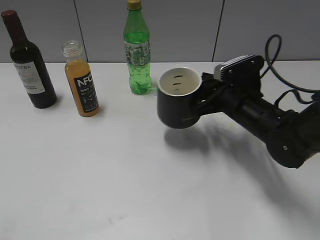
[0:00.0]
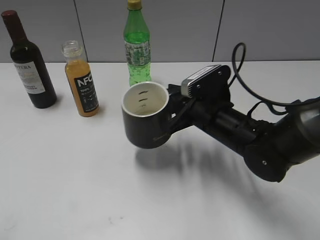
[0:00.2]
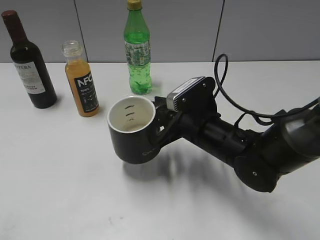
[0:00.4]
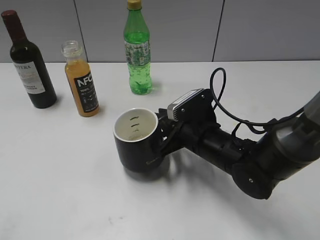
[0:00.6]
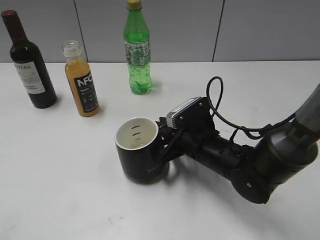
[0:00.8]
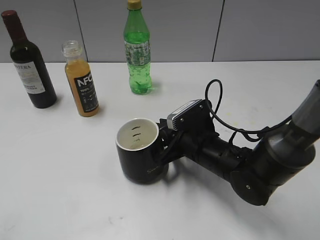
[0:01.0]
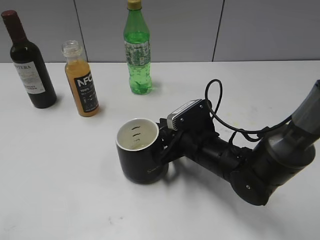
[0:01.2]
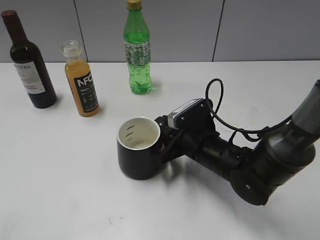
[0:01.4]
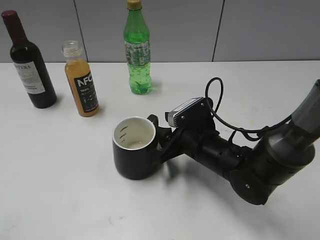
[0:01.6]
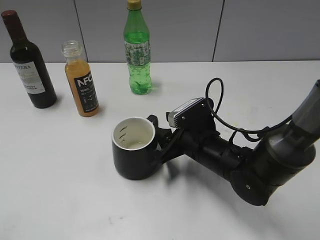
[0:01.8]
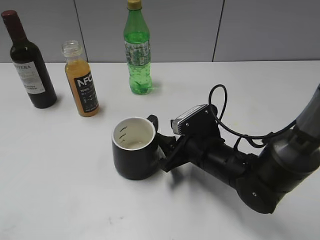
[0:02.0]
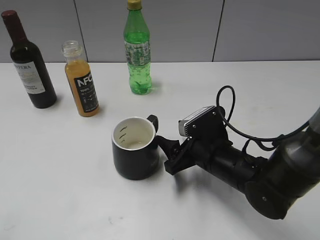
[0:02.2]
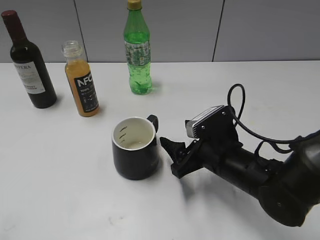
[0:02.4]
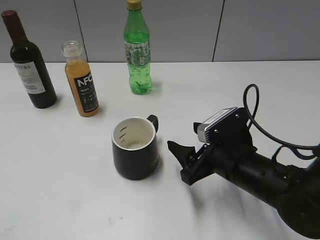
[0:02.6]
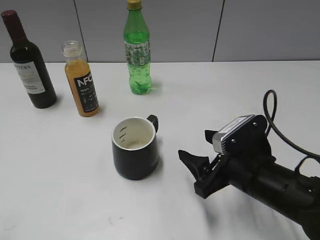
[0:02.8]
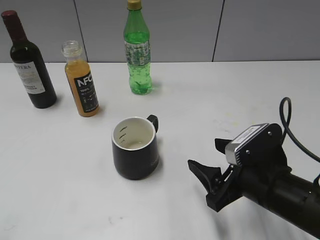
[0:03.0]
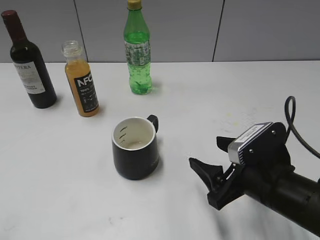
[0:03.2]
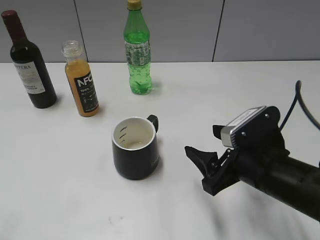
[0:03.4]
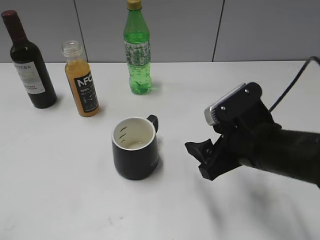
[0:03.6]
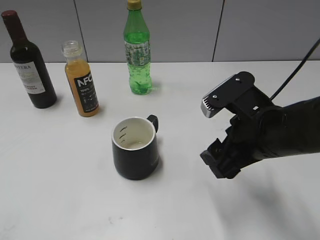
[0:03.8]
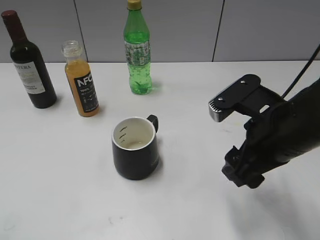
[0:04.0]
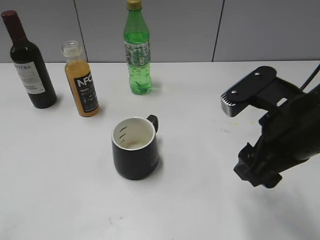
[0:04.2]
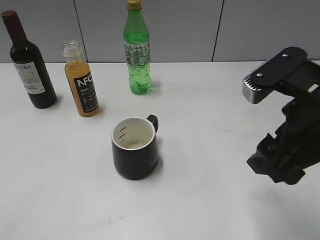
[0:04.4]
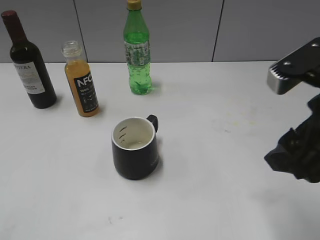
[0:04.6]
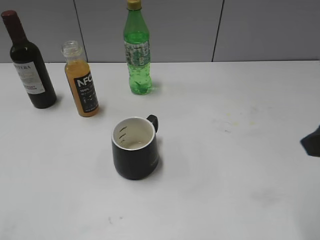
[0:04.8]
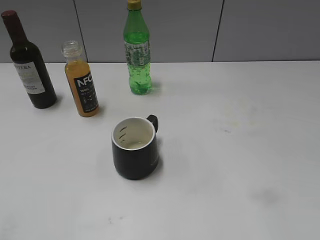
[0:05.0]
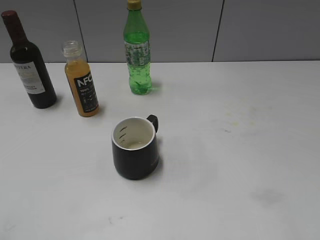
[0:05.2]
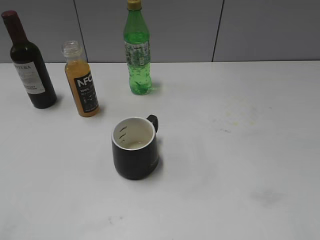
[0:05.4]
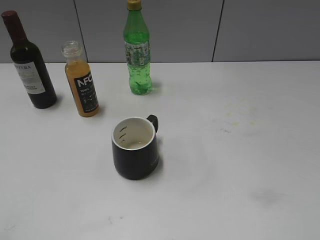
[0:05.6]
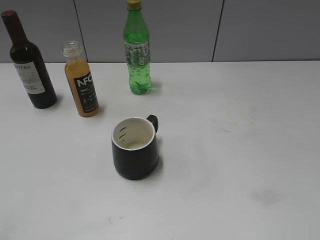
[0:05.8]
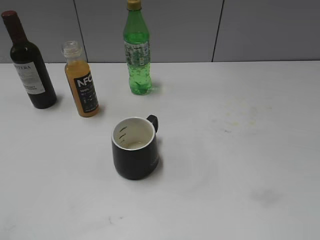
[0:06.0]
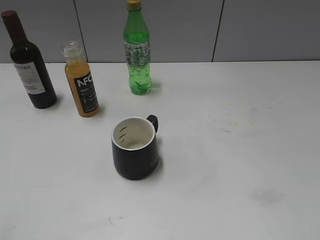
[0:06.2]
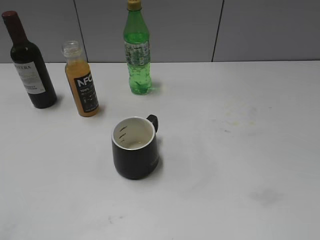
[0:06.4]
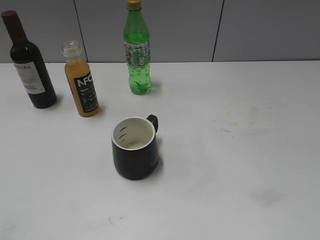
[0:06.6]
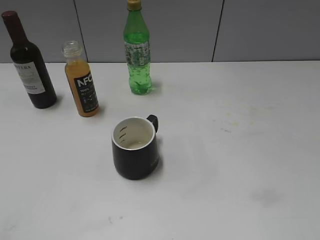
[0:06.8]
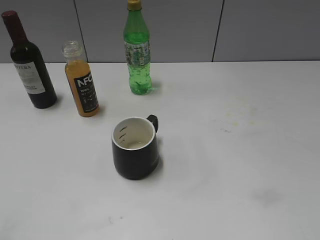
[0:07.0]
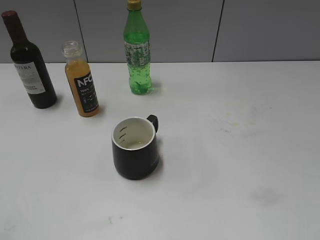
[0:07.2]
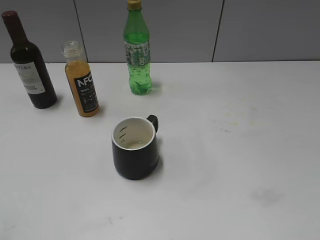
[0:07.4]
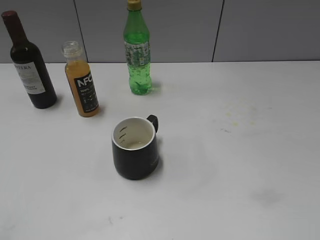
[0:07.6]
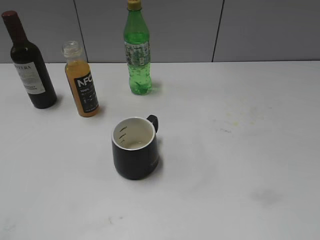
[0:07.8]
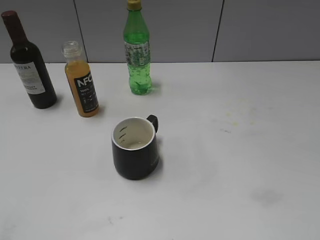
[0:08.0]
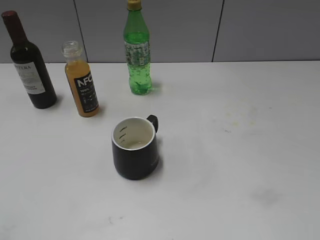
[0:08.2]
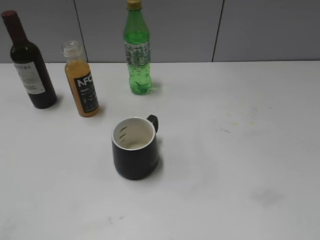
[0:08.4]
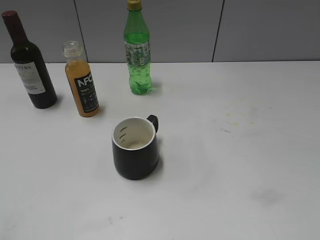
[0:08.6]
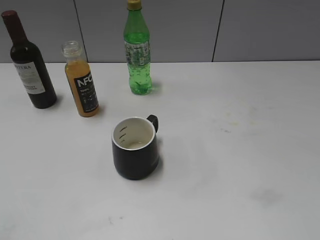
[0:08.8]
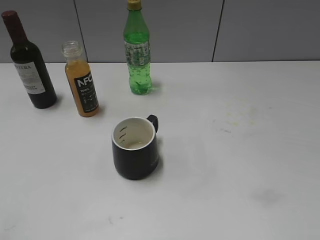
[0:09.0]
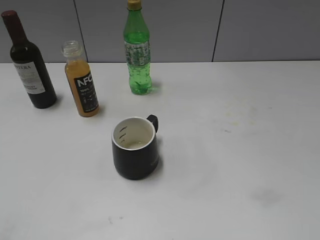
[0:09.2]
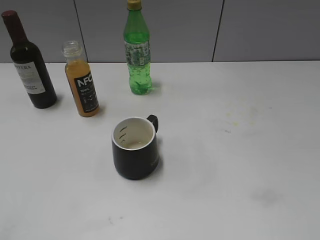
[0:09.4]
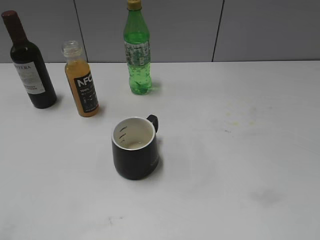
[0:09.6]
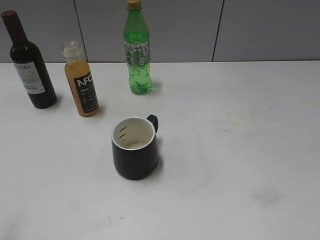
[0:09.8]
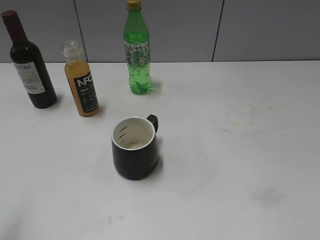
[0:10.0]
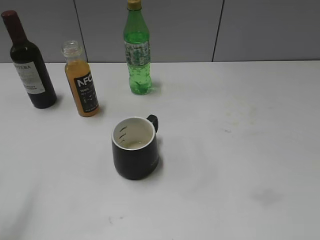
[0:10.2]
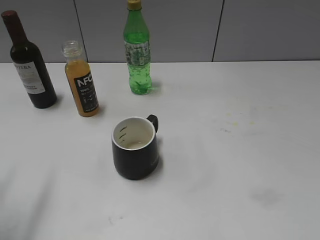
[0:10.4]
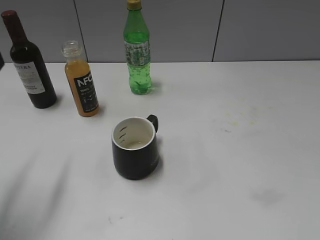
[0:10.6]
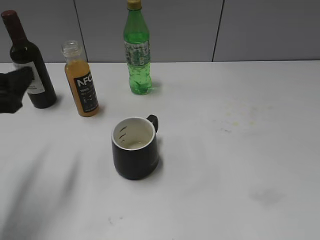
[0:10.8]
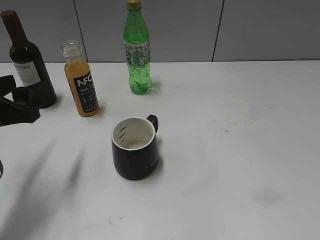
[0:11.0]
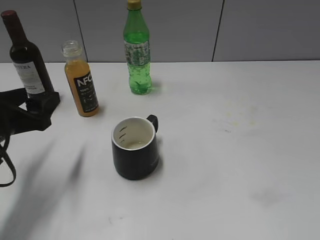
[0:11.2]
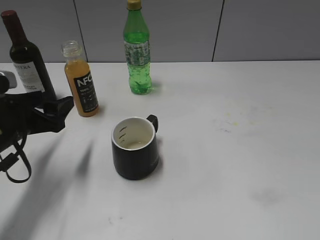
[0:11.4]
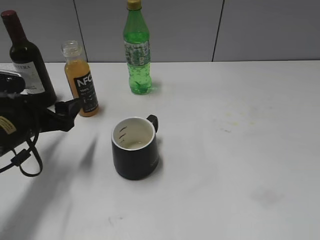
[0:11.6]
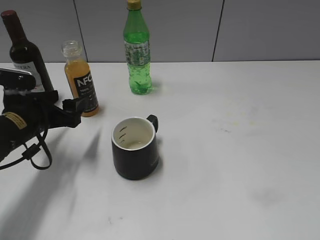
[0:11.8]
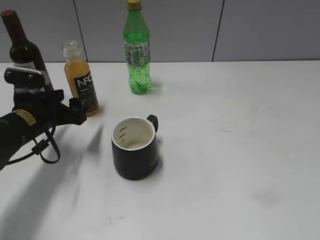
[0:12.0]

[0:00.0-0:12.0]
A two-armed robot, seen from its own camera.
Step, 0:00.0 to 0:01.8: Place the black cup in the center of view with right gripper.
0:00.0 to 0:01.6: The right gripper travels to the left and downward by roughly 10 cm, and opens its fingers.
0:01.6 to 0:03.0: The right gripper is displaced backward and to the right by approximately 10 cm.
0:03.0 to 0:04.4: The right gripper moves upward, roughly 15 cm.
0:04.4 to 0:06.0: The right gripper heads backward and to the right, covering approximately 20 cm.
0:09.0 to 0:10.4: The left gripper moves forward, about 15 cm.
0:10.4 to 0:12.0: The left gripper travels downward, forward and to the right by approximately 25 cm.

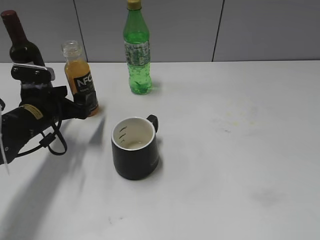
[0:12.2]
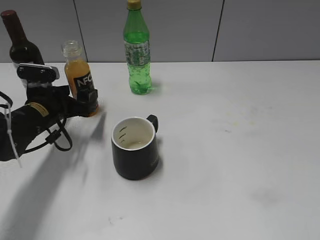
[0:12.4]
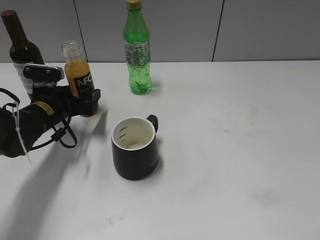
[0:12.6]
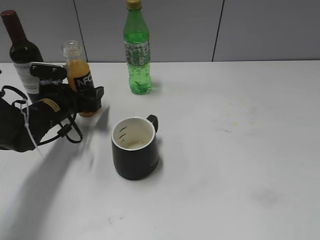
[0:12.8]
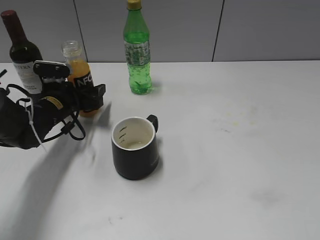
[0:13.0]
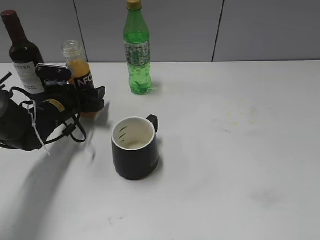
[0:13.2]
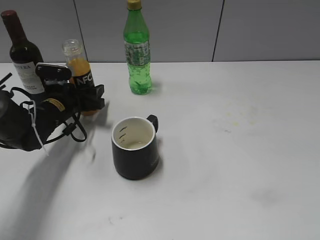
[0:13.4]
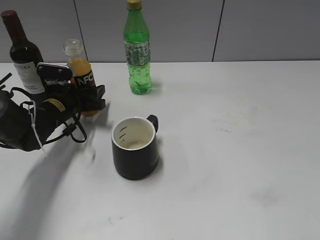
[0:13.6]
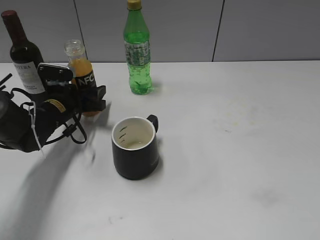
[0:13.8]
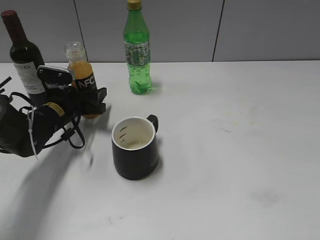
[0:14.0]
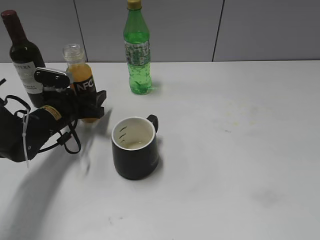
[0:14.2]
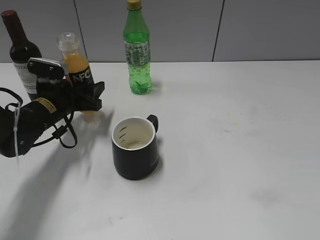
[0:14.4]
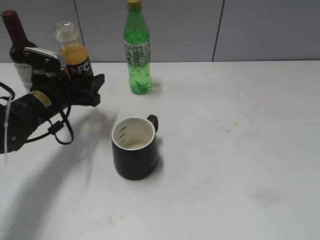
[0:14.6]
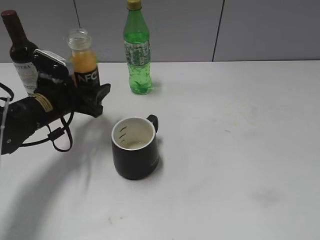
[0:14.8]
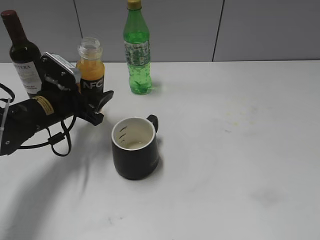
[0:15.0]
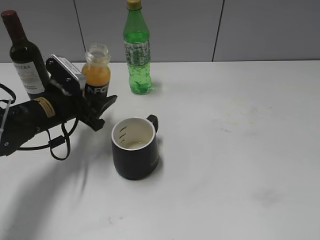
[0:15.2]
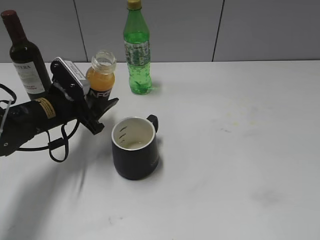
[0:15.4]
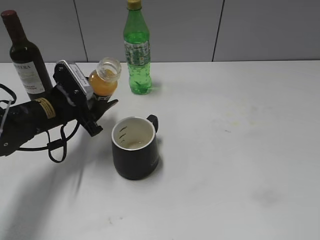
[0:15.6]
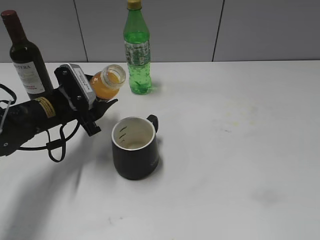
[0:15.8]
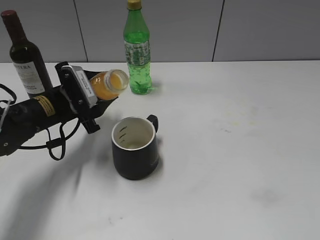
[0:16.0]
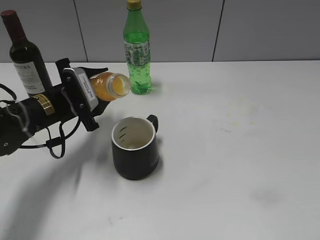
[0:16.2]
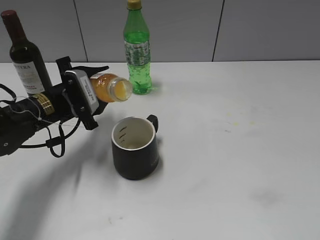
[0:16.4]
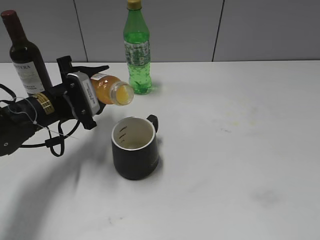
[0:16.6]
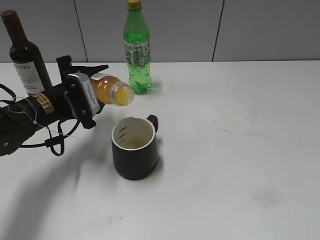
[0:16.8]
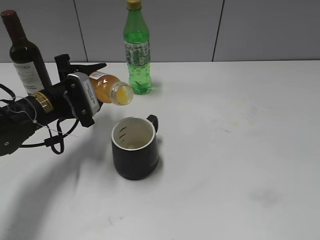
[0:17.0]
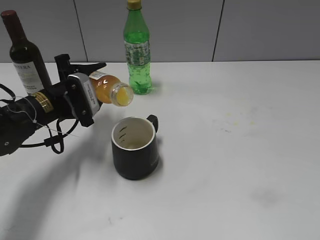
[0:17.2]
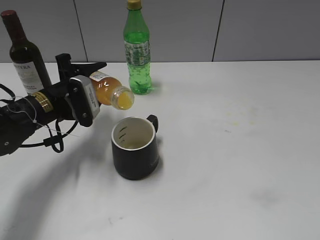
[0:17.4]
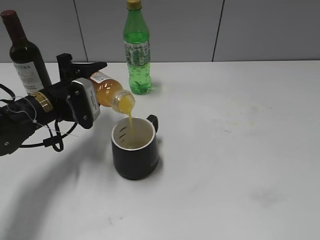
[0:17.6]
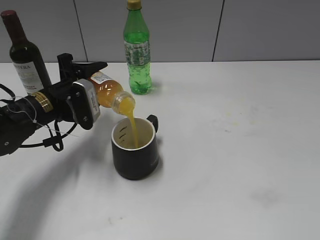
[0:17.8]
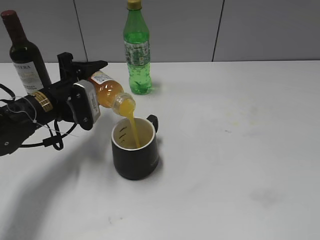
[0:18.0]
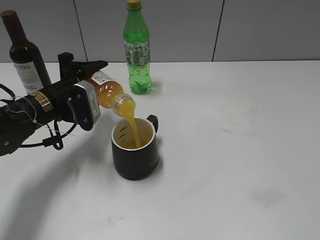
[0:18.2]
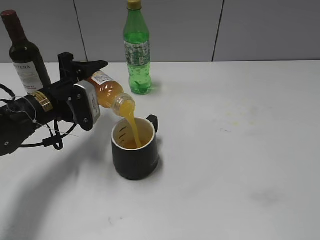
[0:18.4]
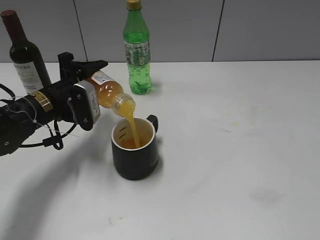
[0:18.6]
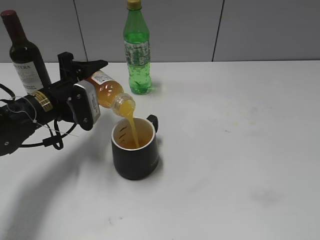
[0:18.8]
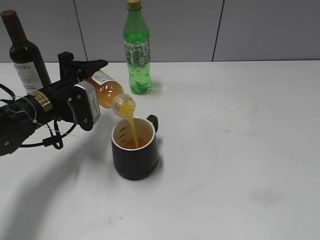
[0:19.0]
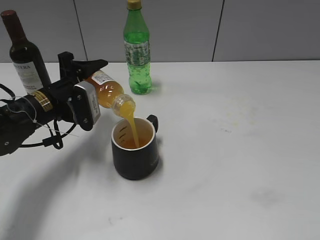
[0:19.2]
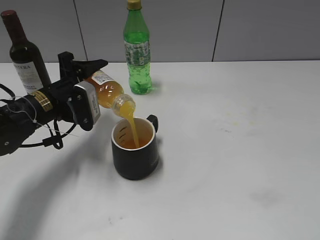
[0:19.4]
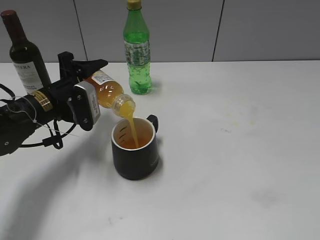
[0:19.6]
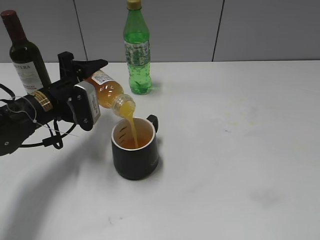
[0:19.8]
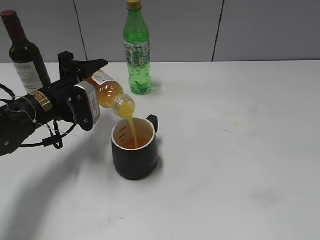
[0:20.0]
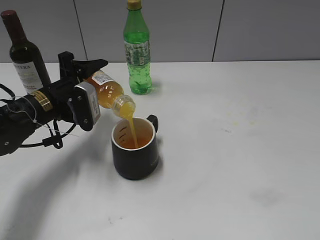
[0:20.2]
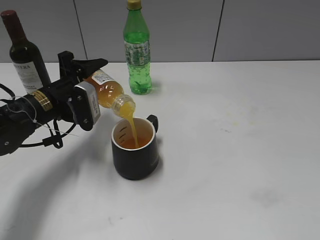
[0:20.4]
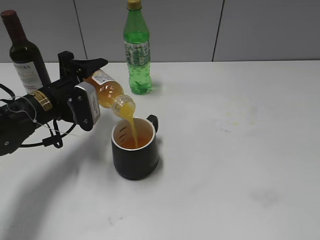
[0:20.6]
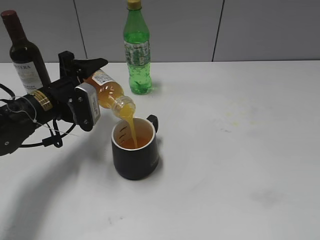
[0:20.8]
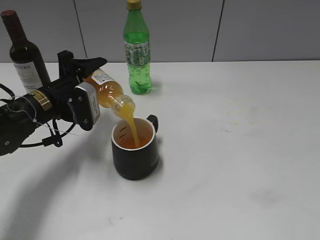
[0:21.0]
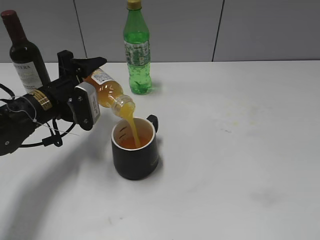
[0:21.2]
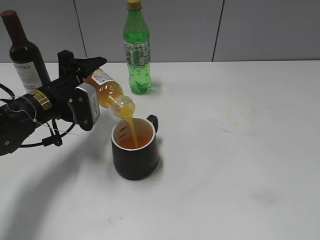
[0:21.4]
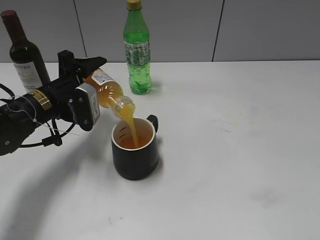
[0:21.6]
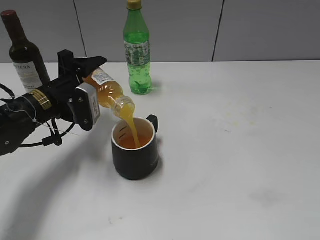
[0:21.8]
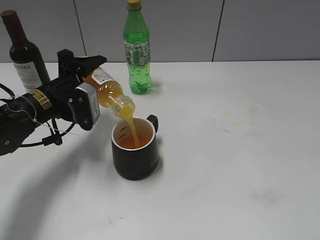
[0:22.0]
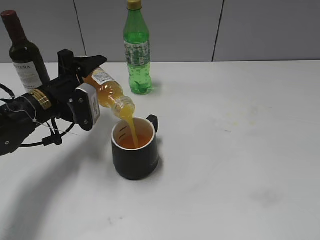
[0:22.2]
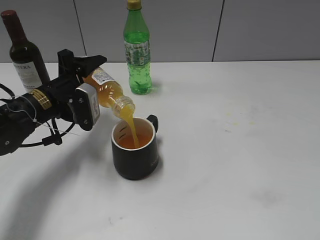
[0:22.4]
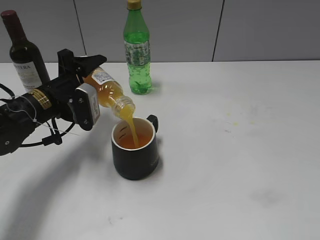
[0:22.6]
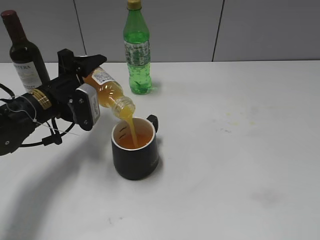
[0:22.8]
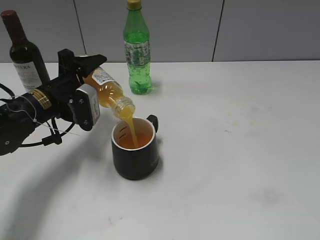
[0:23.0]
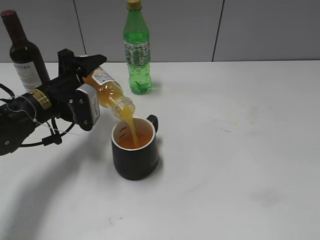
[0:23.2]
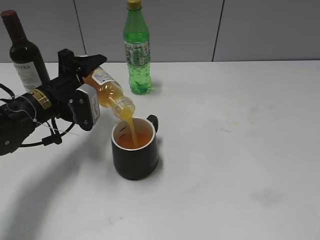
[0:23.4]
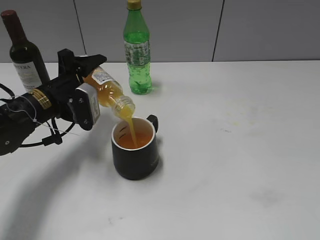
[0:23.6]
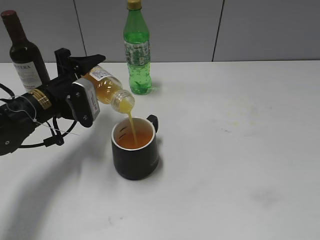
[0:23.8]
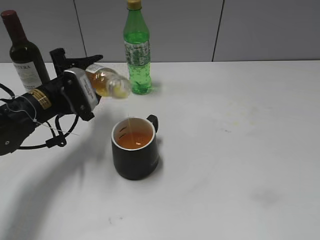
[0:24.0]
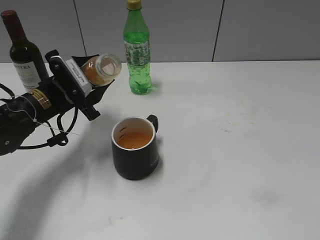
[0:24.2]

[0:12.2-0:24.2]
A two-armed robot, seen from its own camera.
Step, 0:14.2 to 0:24.0: Pour the orange juice from bottle to cup with left gripper.
0:12.2 to 0:13.8: The left gripper moves forward, roughly 5 cm, and closes.
0:13.8 to 0:15.2: The left gripper moves some 5 cm.
0:16.6 to 0:18.2: There are only small adjustments of the grippers.
0:18.2 to 0:19.8: Neither gripper changes place.
0:19.8 to 0:21.2: Neither gripper changes place.
0:21.2 to 0:22.6: The two grippers keep their place.
